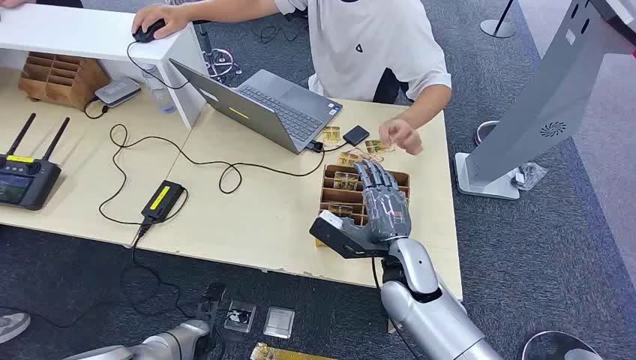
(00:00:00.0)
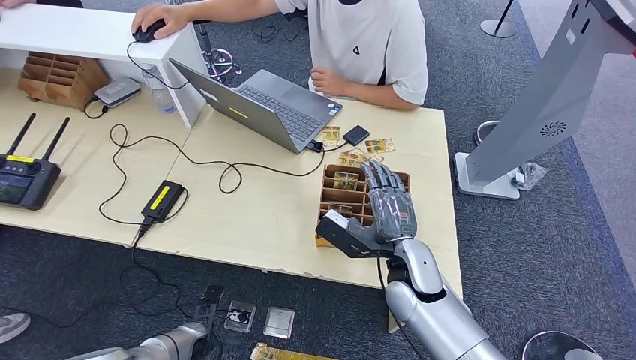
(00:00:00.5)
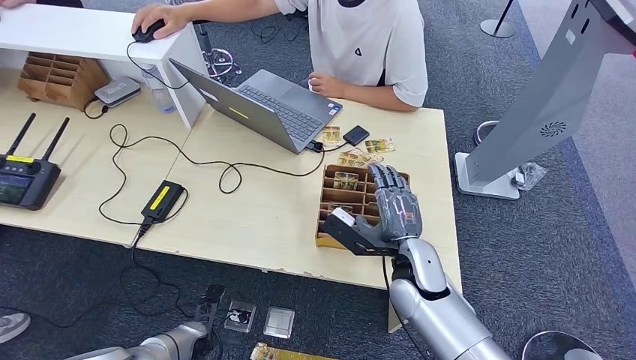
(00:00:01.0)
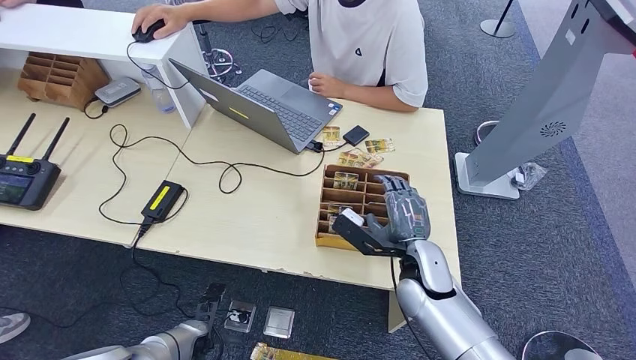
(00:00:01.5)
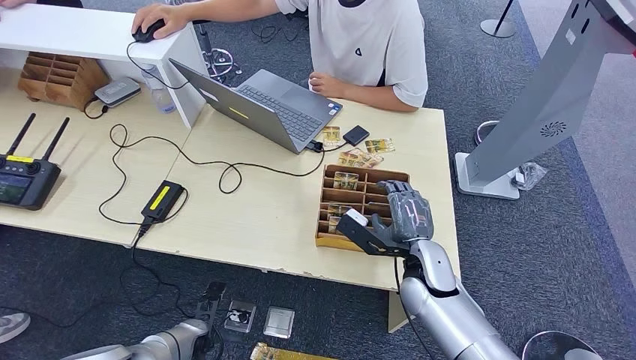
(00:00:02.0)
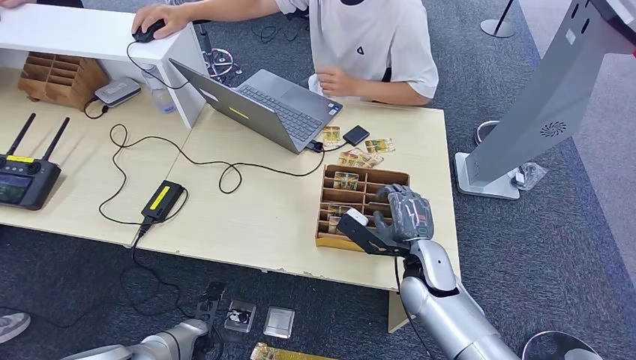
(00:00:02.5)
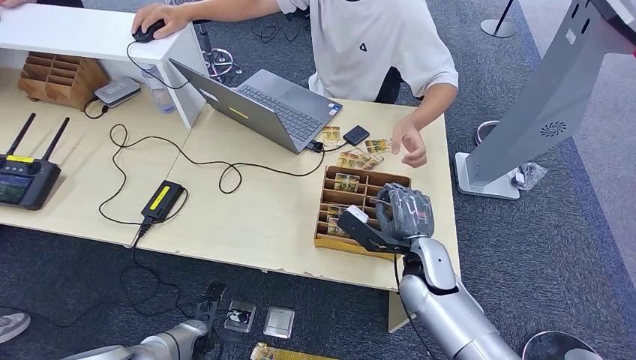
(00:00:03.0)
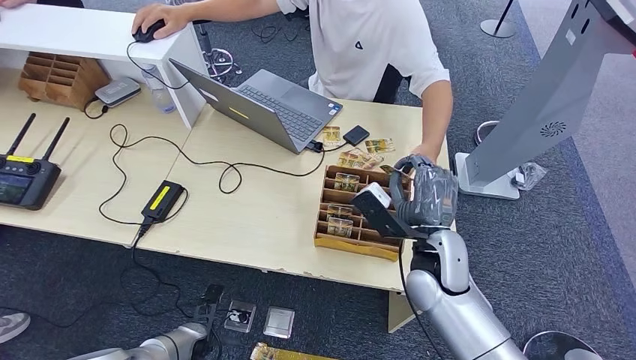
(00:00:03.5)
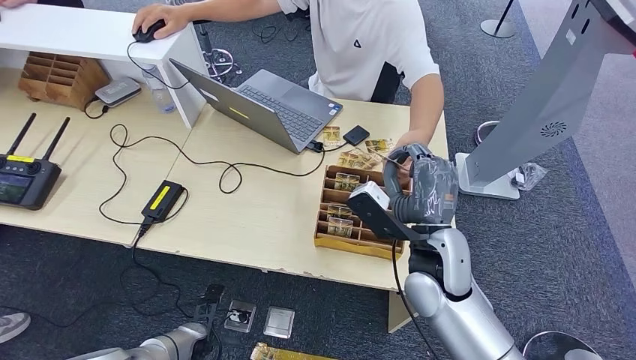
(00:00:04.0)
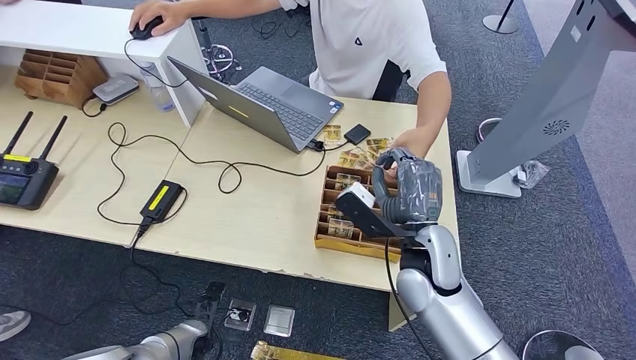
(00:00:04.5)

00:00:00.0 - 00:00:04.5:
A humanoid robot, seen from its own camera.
Step, 00:00:00.0 - 00:00:03.0: Pick up the key card from the card box.
Step, 00:00:03.5 - 00:00:04.5: Hand the key card to the target.
00:00:02.0 - 00:00:04.5: The right hand goes about 10 cm upward.
